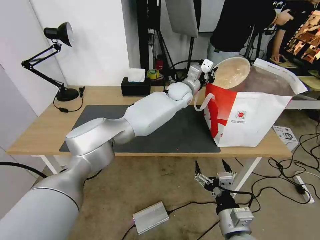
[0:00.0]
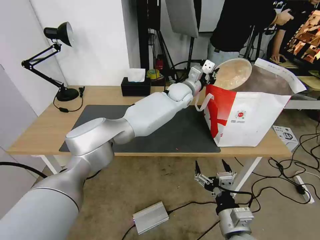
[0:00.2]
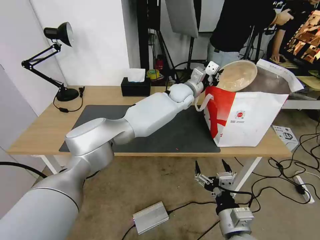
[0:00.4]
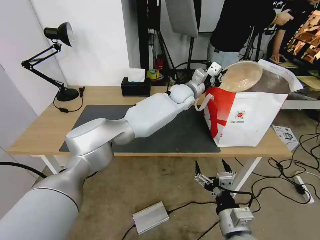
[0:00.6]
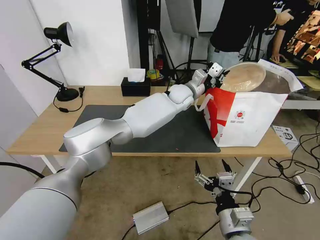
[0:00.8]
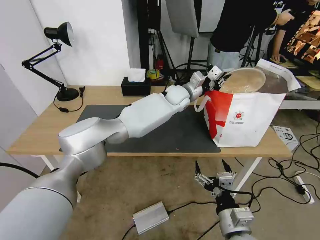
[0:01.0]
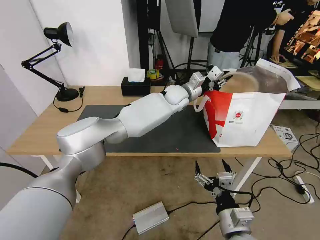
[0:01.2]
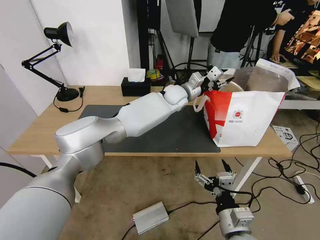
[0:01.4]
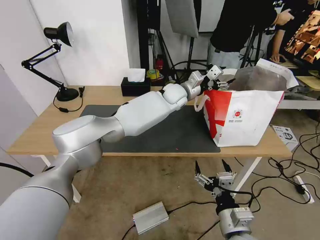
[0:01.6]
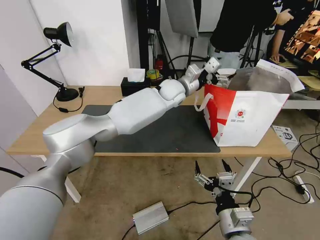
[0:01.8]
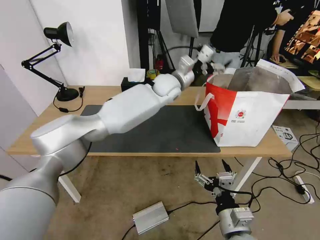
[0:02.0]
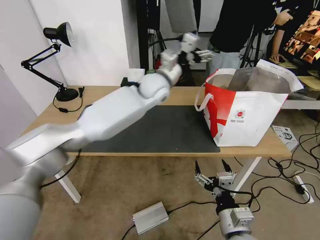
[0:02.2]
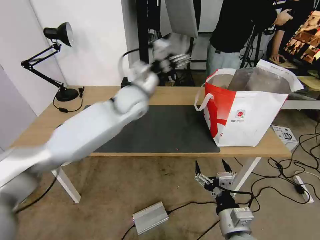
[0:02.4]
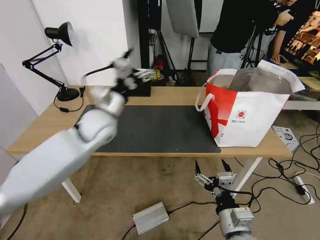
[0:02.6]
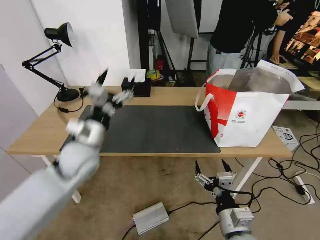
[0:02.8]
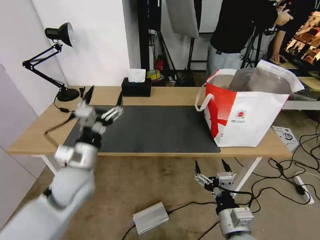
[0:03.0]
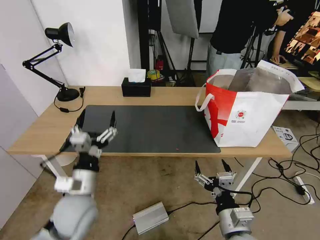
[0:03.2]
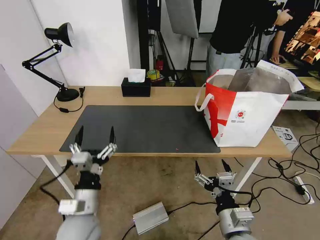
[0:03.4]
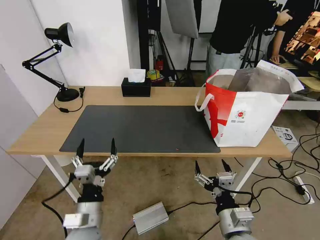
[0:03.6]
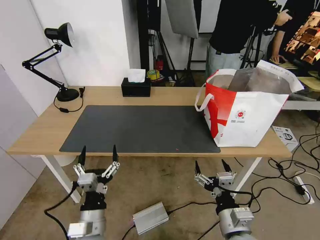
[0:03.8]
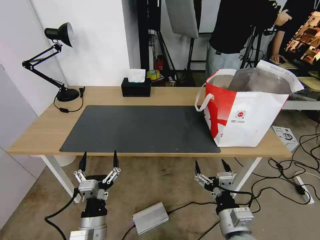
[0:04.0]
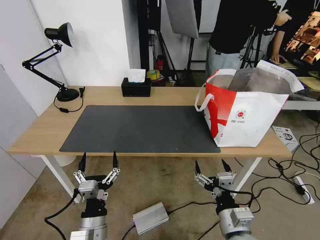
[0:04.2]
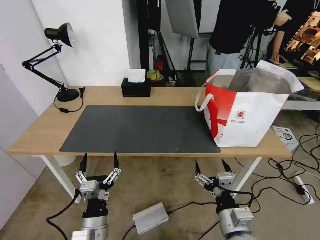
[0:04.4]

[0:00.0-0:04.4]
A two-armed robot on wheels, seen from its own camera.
Task of the whole recording: Pick up the trash from the table and place it into the takeout bag.
0:00.0 to 0:01.4: The left gripper opens up.
0:01.4 to 0:03.0: The left gripper goes approximately 40 cm backward and to the left, and opens up.
0:03.0 to 0:04.4: The left gripper heads backward and downward, covering about 20 cm.
